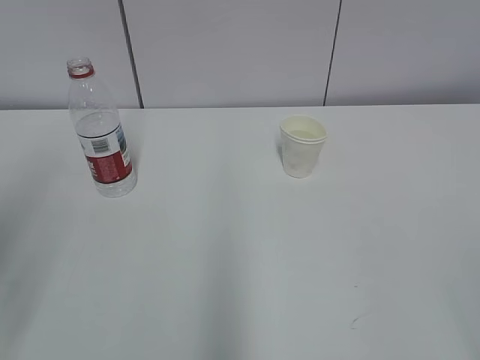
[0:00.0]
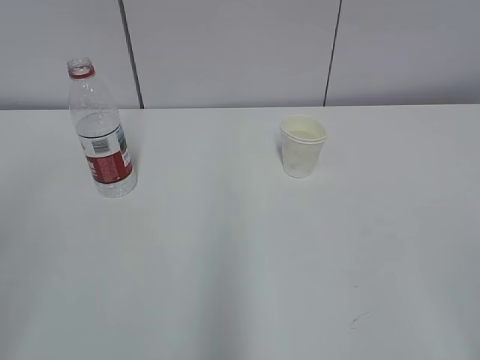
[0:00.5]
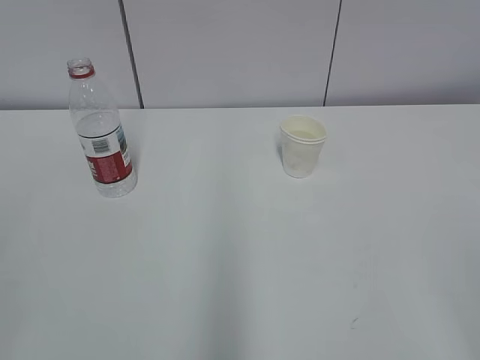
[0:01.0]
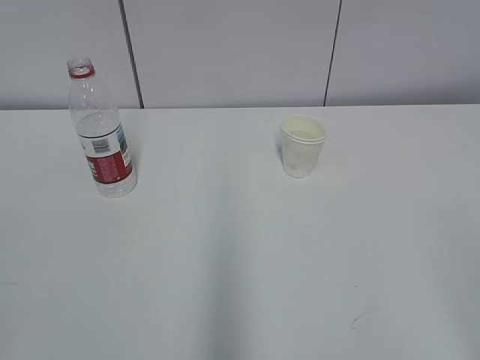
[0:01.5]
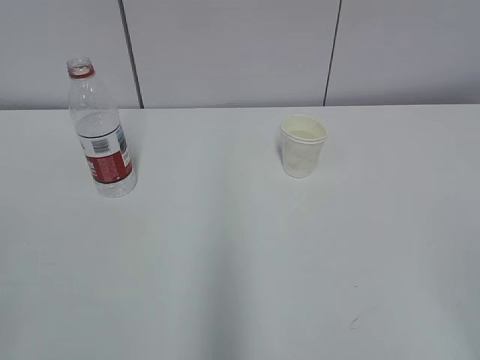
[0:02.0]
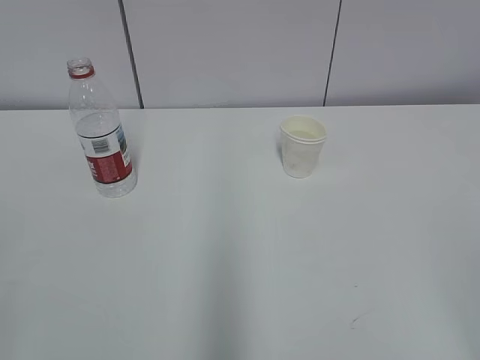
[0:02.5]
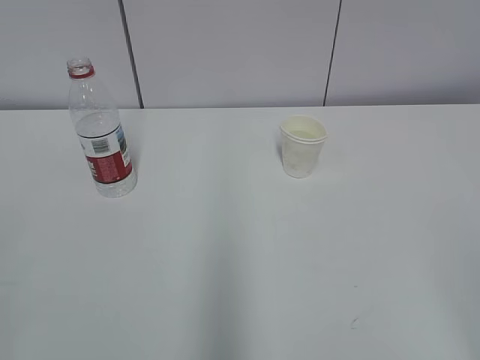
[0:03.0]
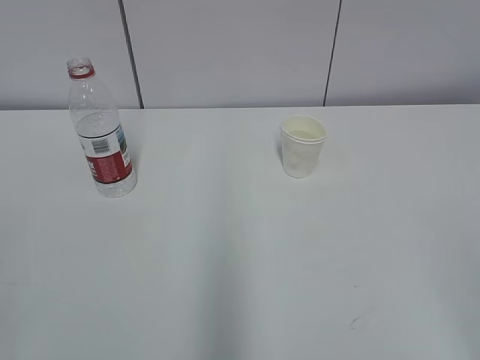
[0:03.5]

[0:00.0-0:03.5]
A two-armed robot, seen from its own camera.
0:02.0 to 0:03.5: The two grippers keep their place.

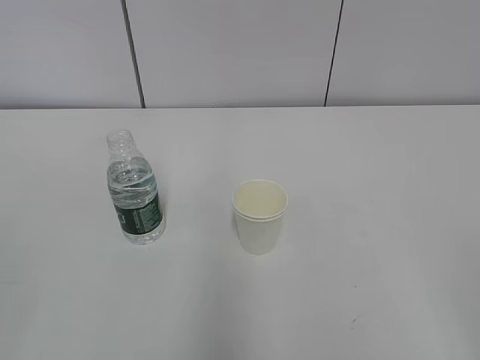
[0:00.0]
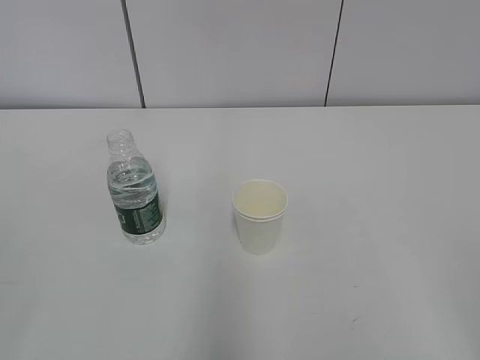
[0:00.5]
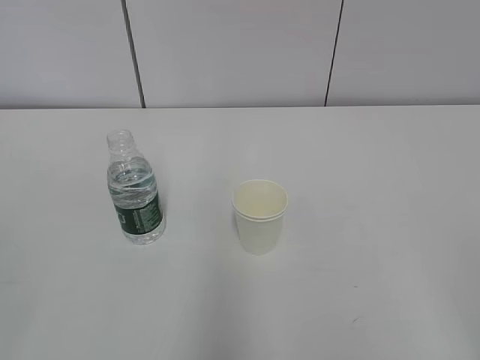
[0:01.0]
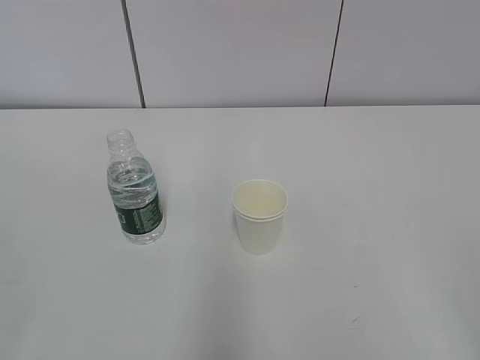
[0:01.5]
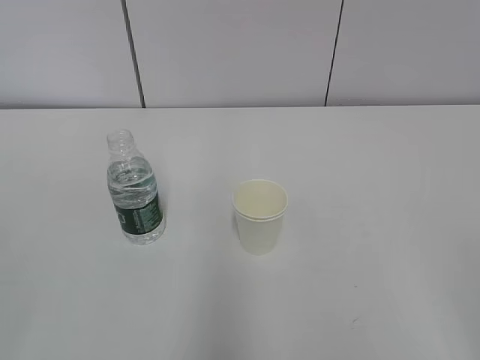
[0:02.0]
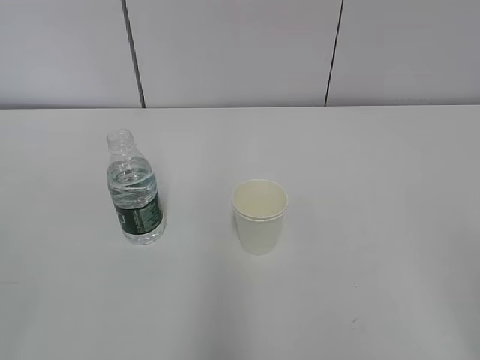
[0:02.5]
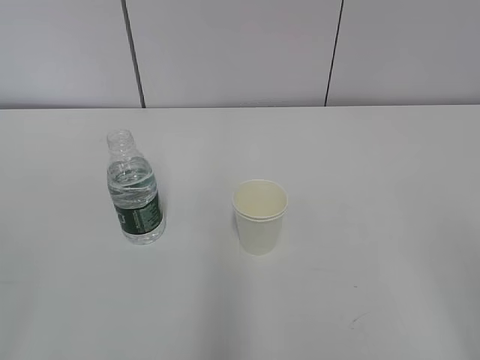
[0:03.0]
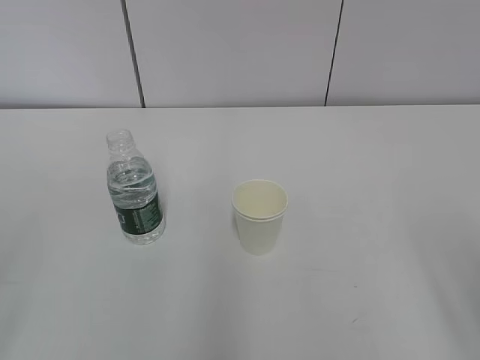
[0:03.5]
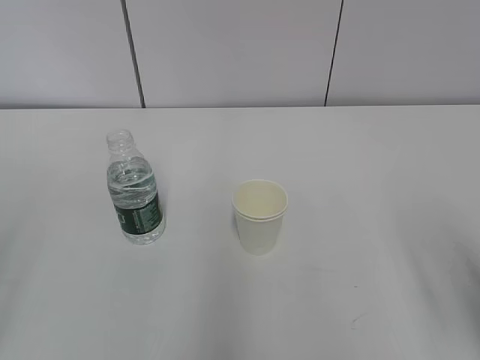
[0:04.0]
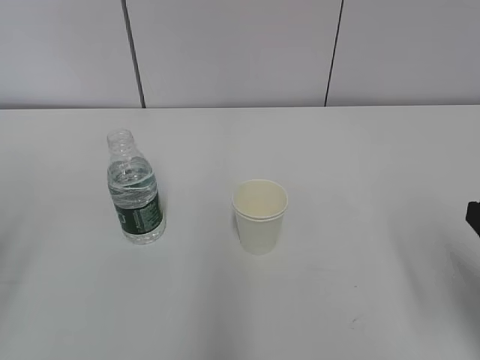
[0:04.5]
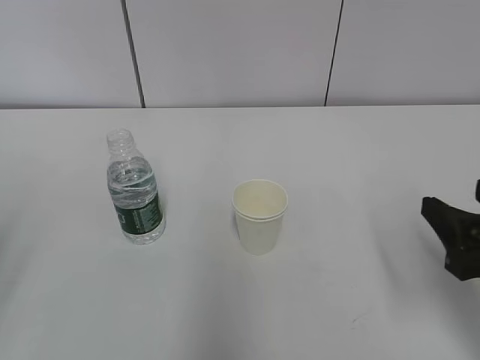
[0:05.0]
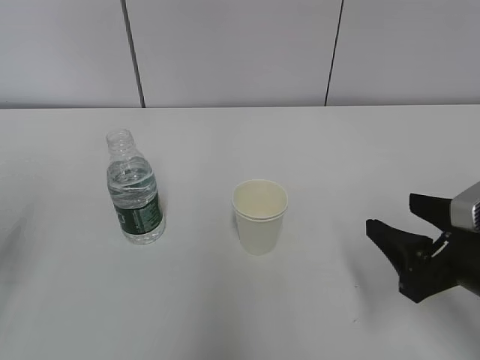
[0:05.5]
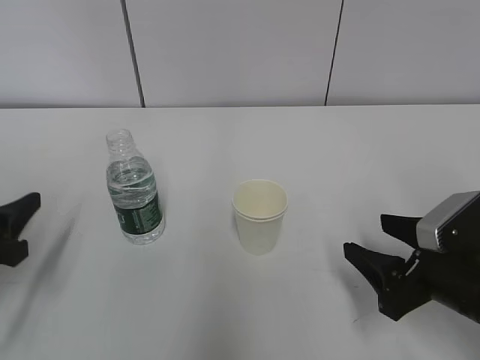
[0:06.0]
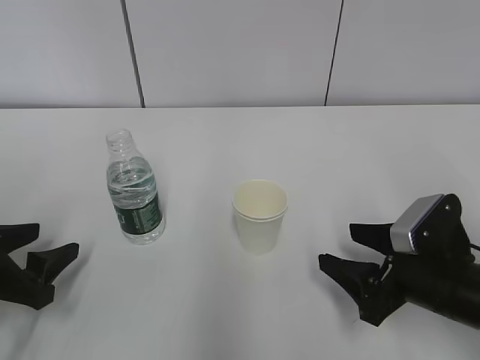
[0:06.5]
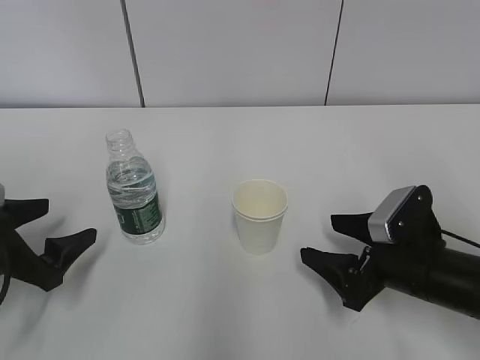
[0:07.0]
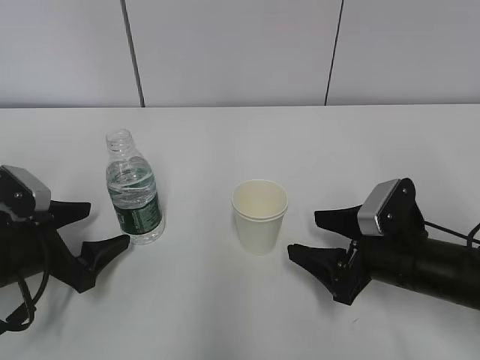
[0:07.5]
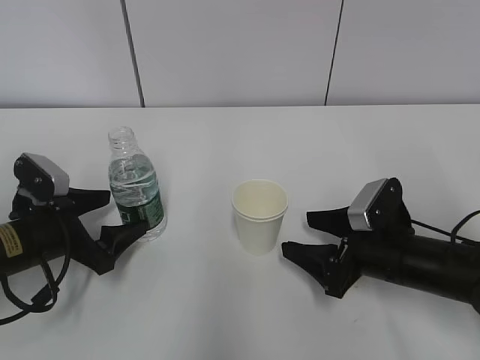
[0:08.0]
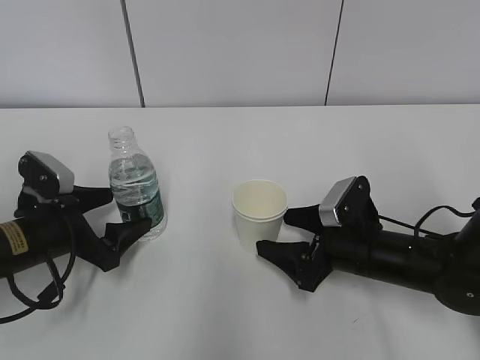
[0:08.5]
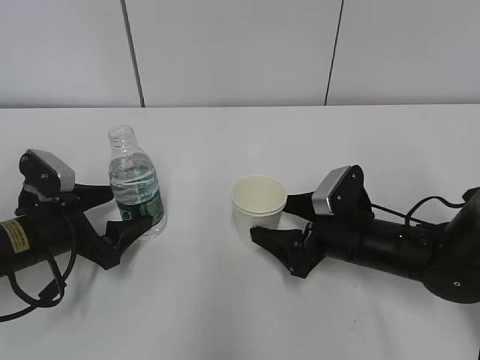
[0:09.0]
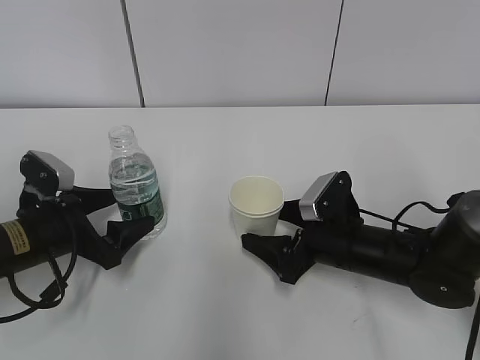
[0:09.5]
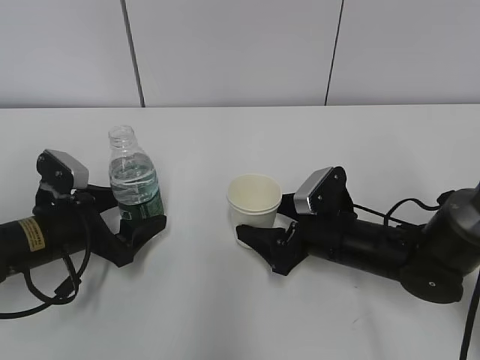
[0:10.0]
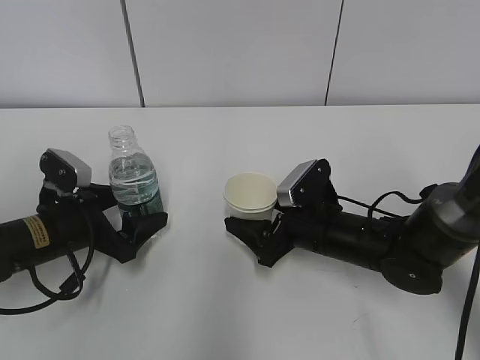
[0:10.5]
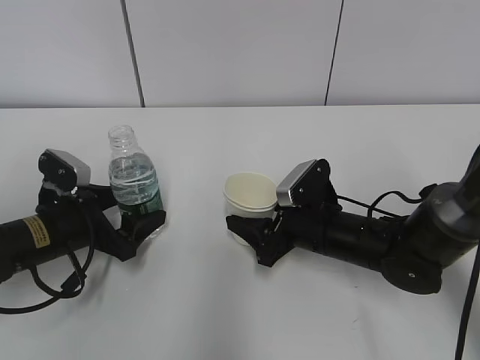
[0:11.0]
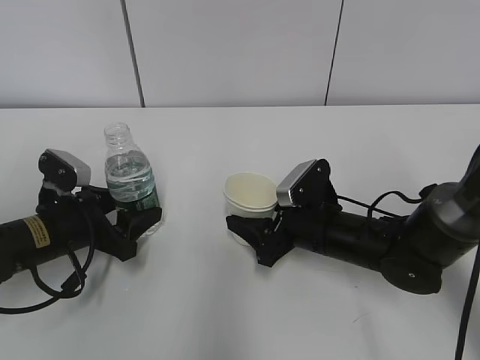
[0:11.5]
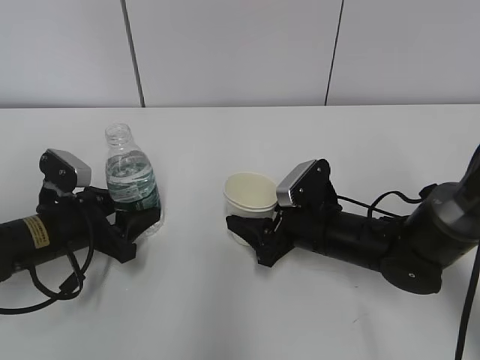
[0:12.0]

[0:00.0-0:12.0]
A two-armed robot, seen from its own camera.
Step, 0:00.0 to 0:08.5: Grab the paper cup with the right hand.
0:04.0 to 0:06.0: The left gripper travels forward and downward by about 20 cm. Meanwhile the right gripper shifts about 15 cm downward and forward.
0:06.0 to 0:08.0: The left gripper travels forward, downward and to the right by some 10 cm, and opens up, while the right gripper moves forward, some 5 cm.
0:08.0 to 0:10.0: The right gripper goes approximately 5 cm to the left.
0:10.0 to 0:12.0: The right gripper closes. Meanwhile the left gripper closes.

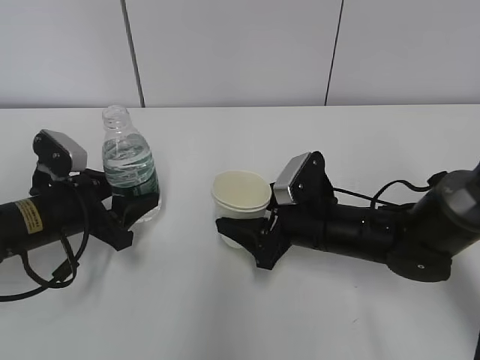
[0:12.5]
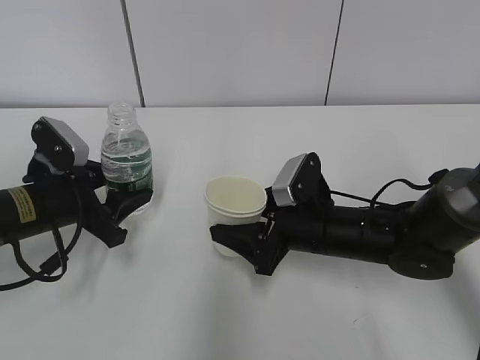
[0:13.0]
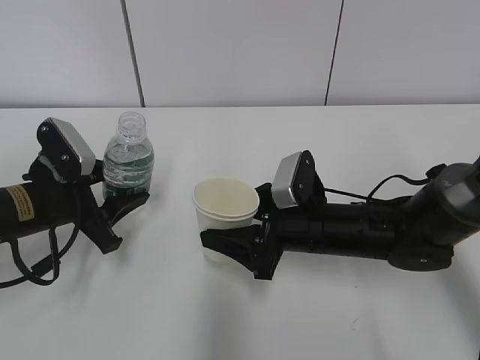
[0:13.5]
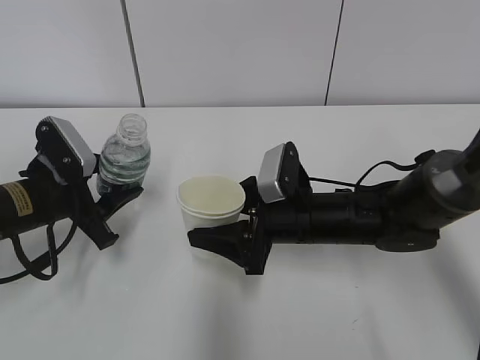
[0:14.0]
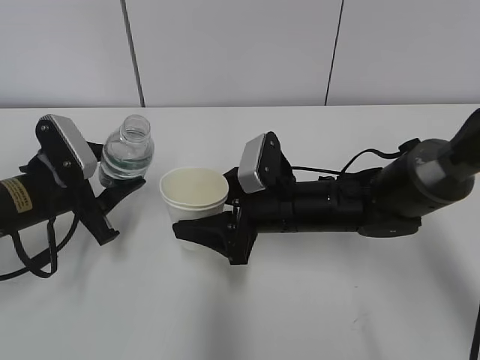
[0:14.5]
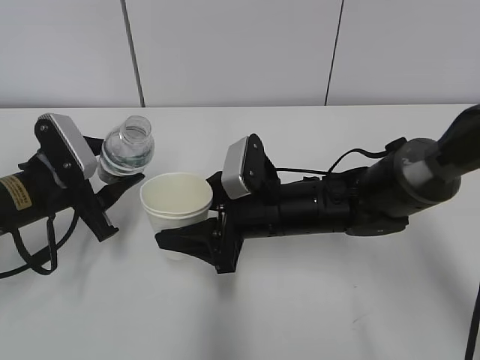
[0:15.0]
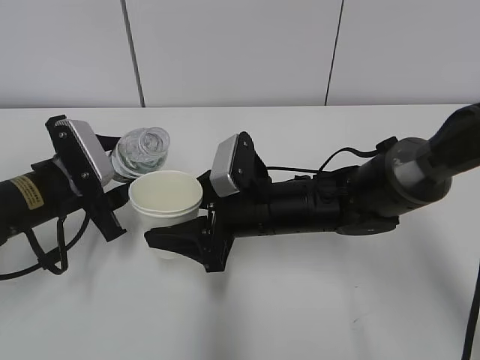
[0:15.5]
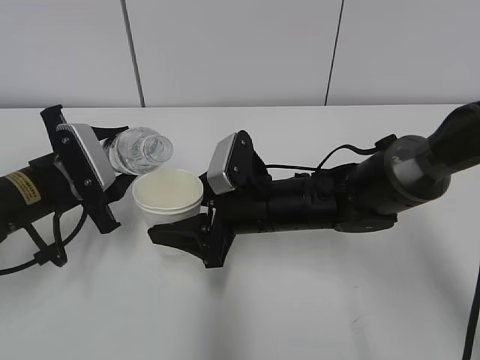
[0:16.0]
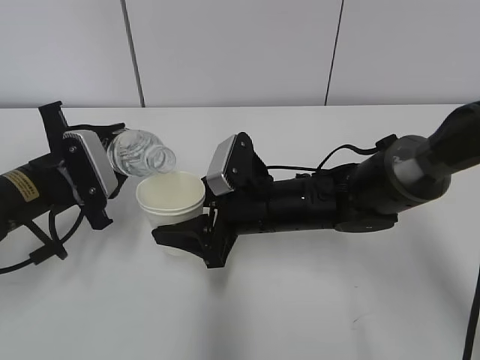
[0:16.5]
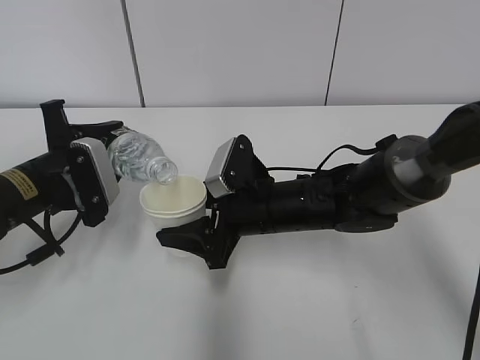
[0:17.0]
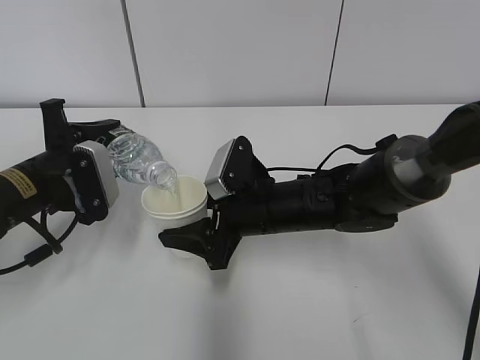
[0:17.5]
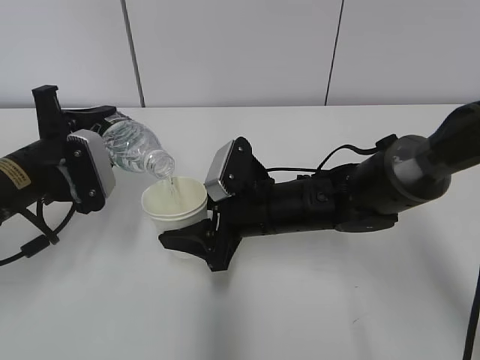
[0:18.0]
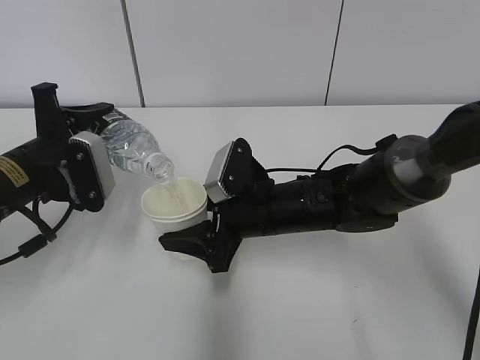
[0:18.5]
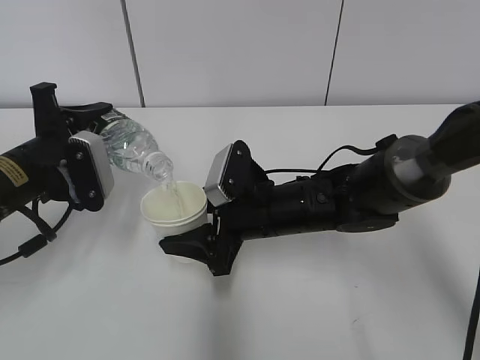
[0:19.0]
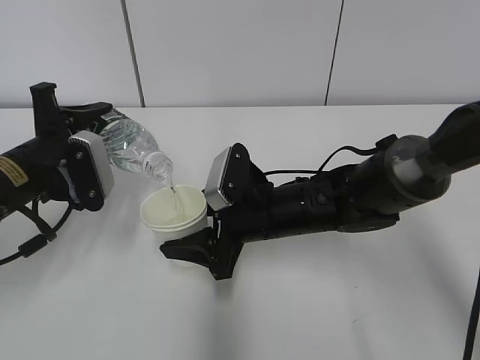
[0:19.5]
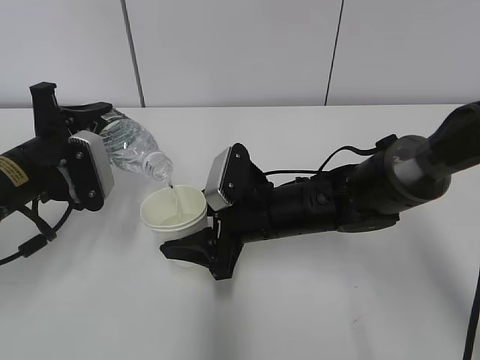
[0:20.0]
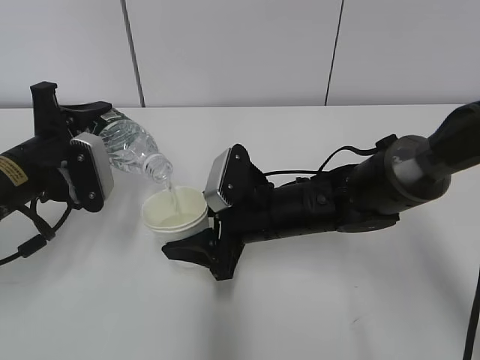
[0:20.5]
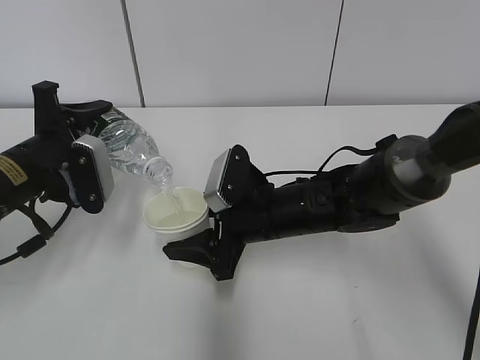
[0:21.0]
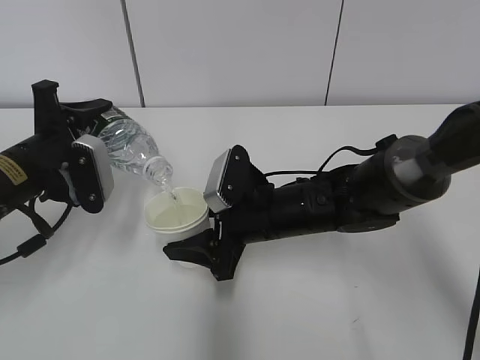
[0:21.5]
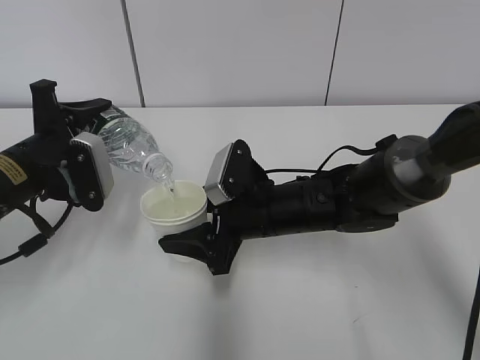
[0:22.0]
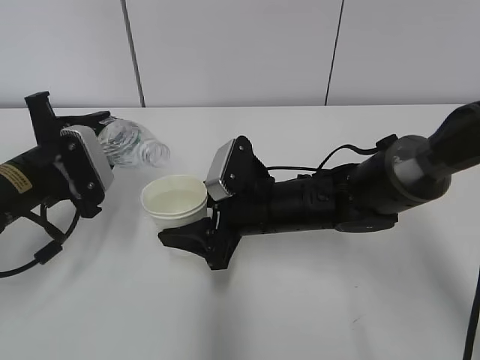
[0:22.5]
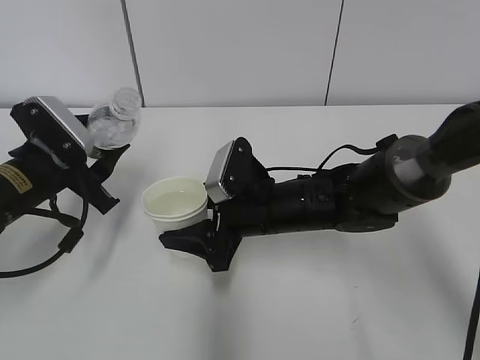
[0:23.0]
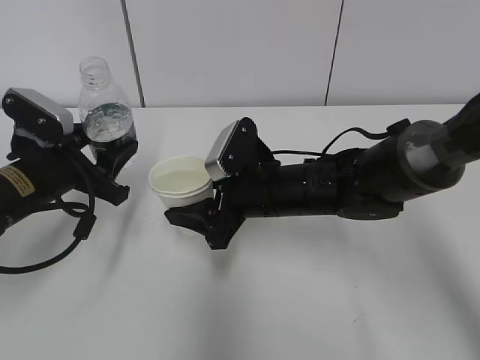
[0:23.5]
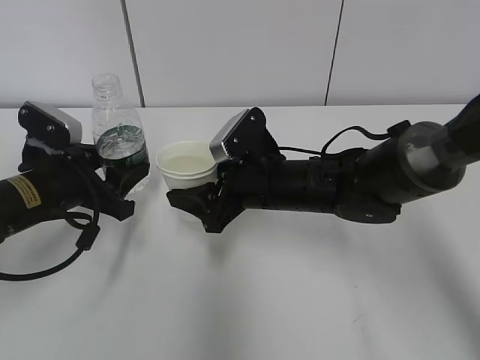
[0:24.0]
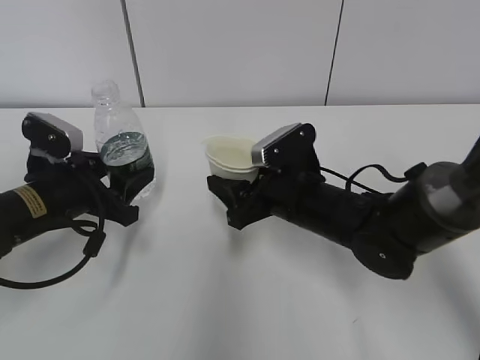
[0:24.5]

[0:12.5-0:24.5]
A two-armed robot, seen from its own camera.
Step, 0:14.5 to 0:18.5: Fill water with the right hand.
Step, 0:14.5 to 0:18.5: Pour water with the left hand.
Step, 0:20.0 to 0:22.0: Place the water bottle with the left hand.
0:12.5 to 0:14.5: The right gripper moves about 5 cm.
0:16.5 to 0:18.5: The grippers make only small movements.
0:18.5 to 0:20.5: Both grippers stay put.
0:20.5 to 0:22.5: The grippers stay close to where they were, moving slightly.
